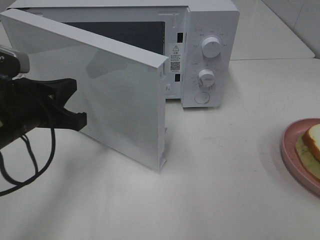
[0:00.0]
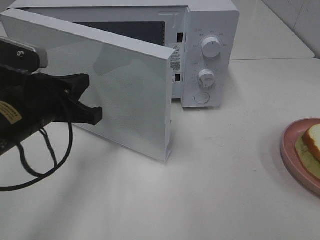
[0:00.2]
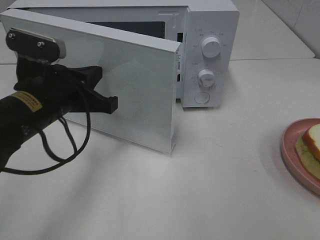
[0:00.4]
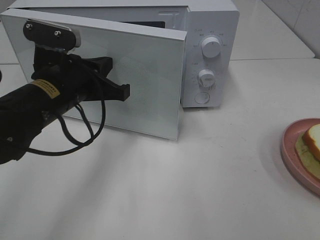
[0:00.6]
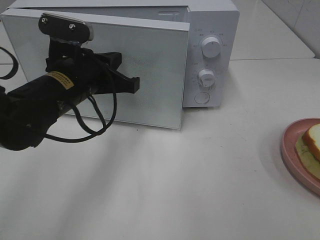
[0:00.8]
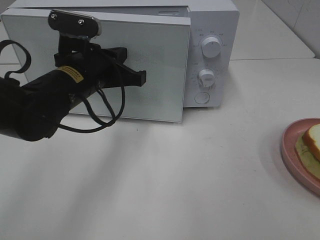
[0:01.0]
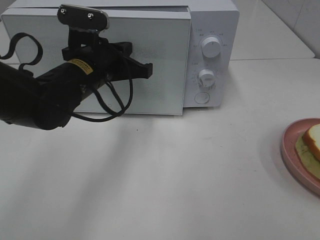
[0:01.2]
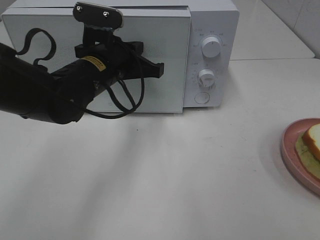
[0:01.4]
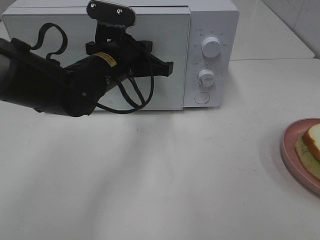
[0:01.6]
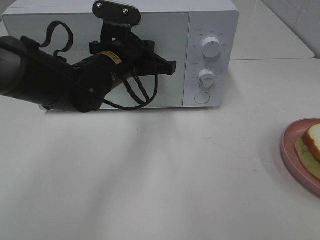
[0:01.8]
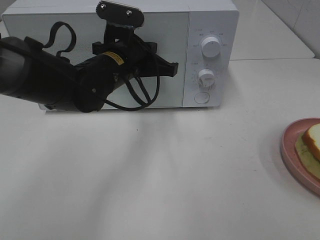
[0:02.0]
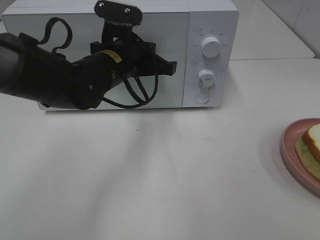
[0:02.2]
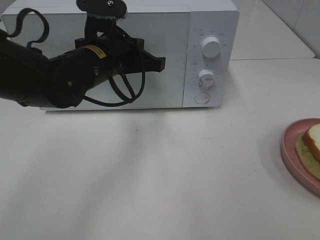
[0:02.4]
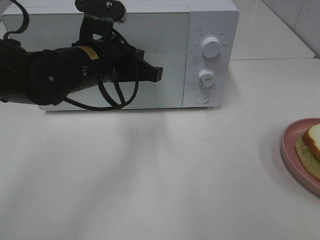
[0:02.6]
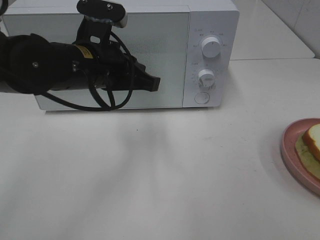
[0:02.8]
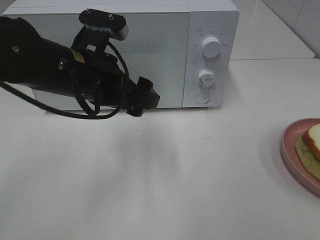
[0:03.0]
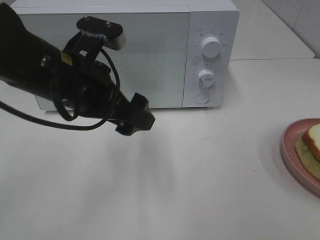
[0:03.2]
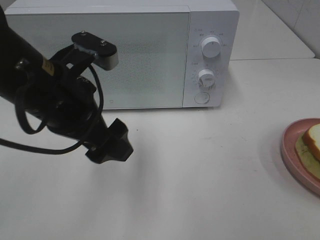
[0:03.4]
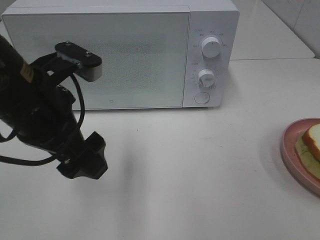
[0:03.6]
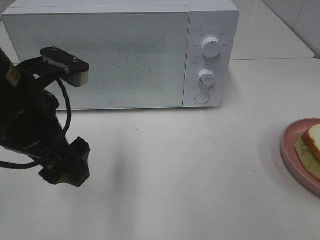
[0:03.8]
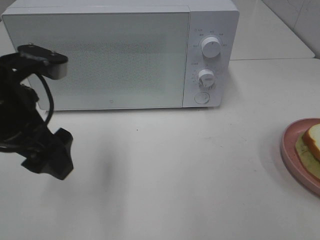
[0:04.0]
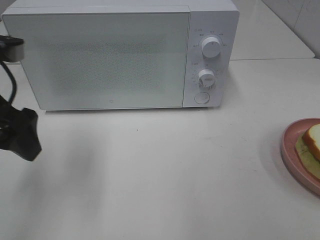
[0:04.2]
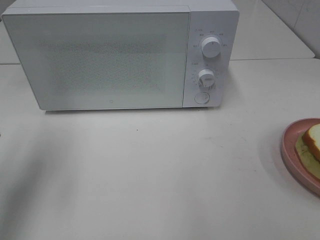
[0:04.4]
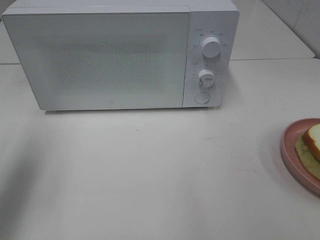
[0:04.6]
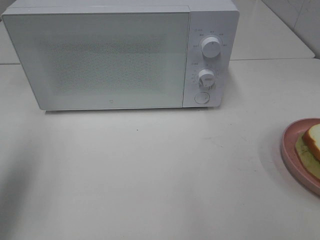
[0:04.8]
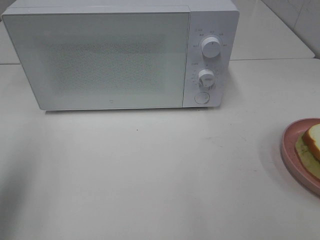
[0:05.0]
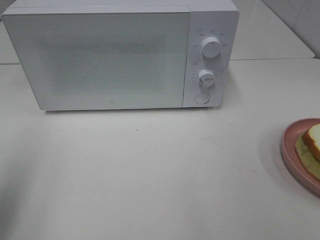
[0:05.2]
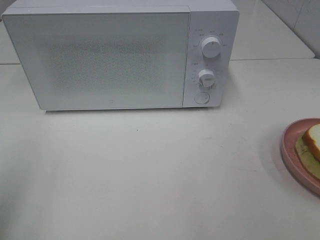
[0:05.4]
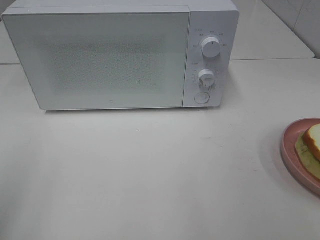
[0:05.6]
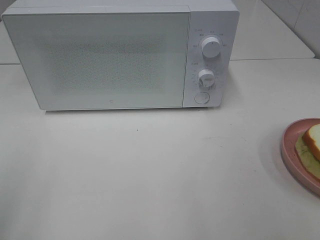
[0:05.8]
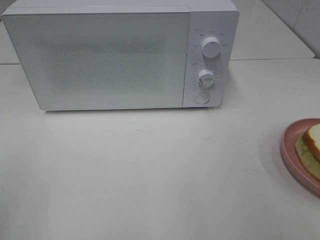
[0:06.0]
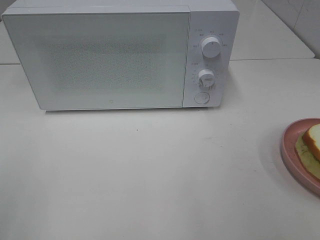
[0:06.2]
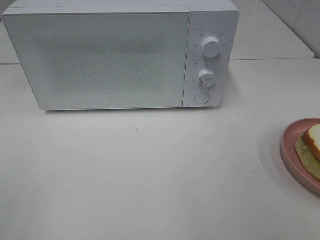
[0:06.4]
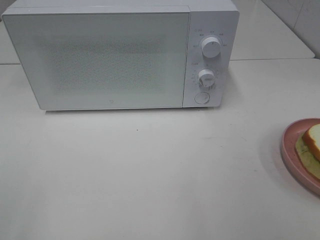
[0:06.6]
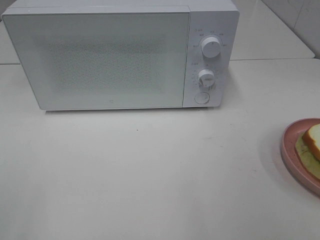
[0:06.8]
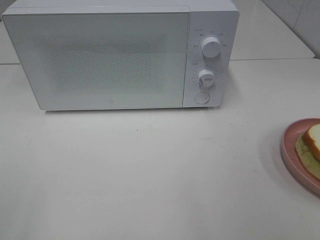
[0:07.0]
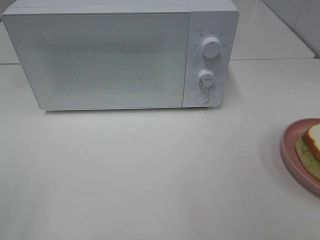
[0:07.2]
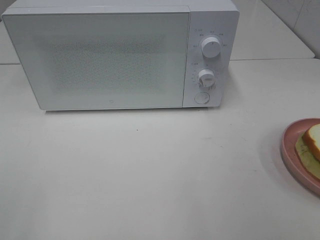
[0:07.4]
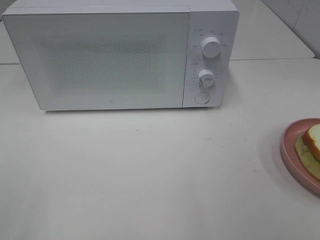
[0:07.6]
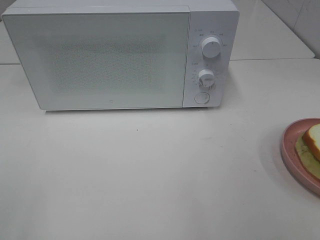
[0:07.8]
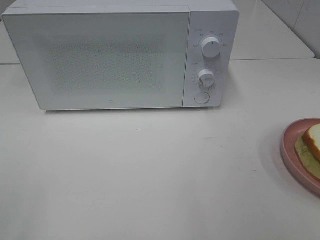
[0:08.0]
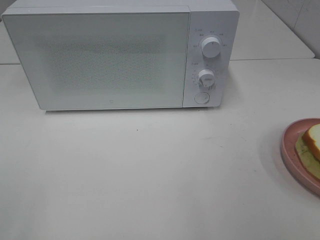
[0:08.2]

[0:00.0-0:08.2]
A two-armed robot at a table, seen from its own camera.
Task of the whole recording: Heat Sandwich.
Step, 0:00.0 to 0:02.6: Left hand: close the microwave door.
0:00.0 to 0:01.6: The left gripper is displaced to the right and forward by approximately 15 cm.
0:01.6 to 0:03.2: The left gripper travels backward by roughly 10 cm, and opens its fingers.
0:03.2 to 0:05.0: The left gripper travels to the left by about 20 cm.
0:05.0 to 0:06.6: The left gripper moves backward, about 15 cm.
0:06.6 to 0:08.2: The two grippers keep their place.

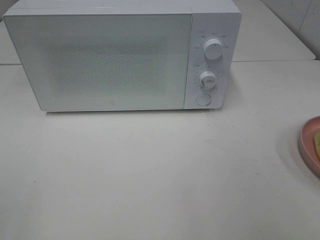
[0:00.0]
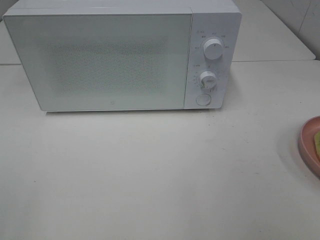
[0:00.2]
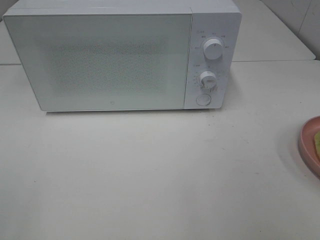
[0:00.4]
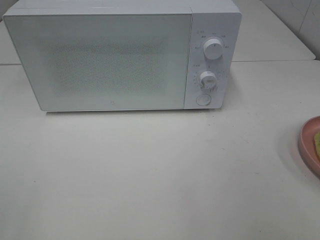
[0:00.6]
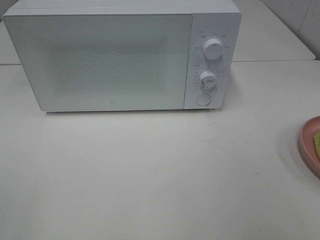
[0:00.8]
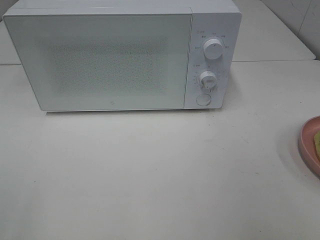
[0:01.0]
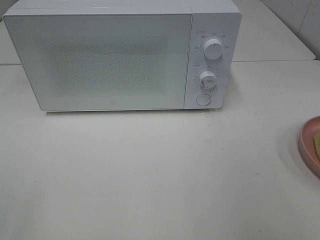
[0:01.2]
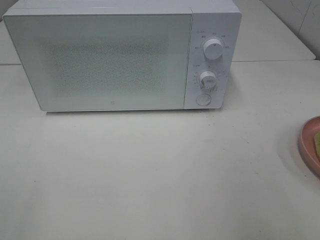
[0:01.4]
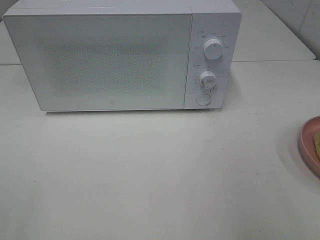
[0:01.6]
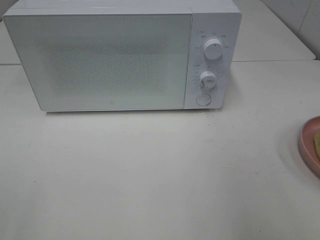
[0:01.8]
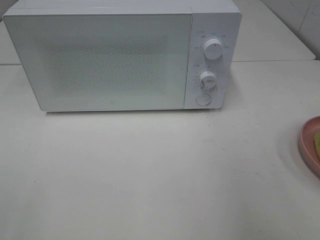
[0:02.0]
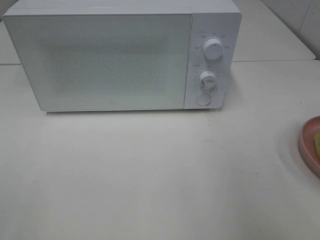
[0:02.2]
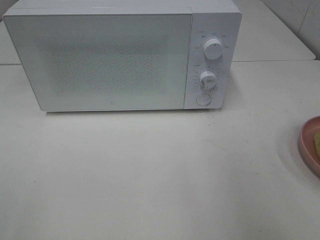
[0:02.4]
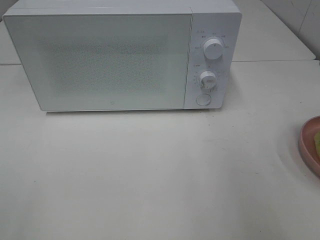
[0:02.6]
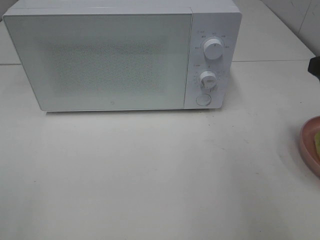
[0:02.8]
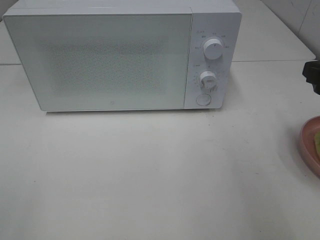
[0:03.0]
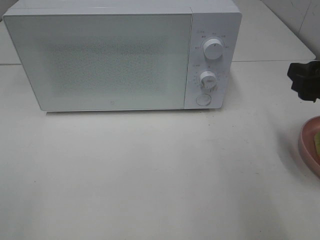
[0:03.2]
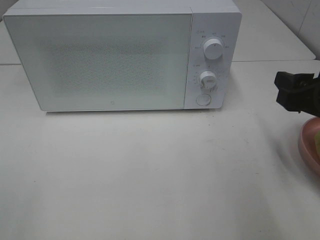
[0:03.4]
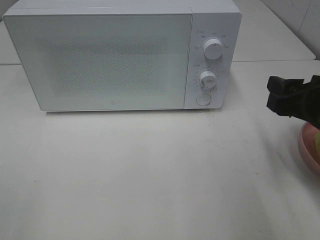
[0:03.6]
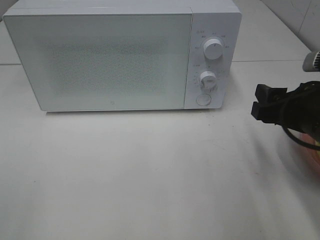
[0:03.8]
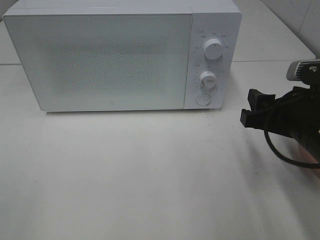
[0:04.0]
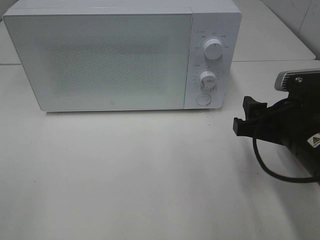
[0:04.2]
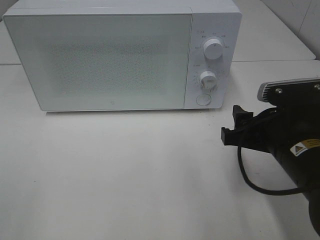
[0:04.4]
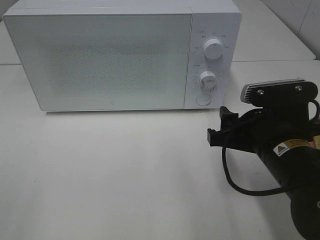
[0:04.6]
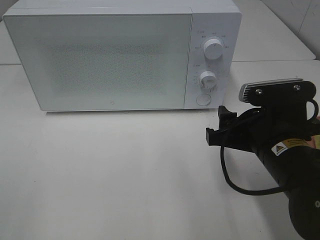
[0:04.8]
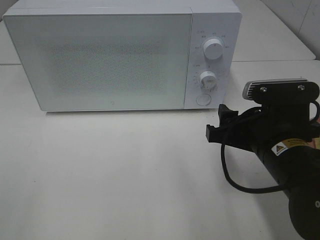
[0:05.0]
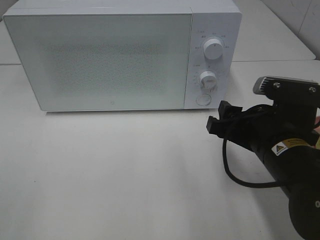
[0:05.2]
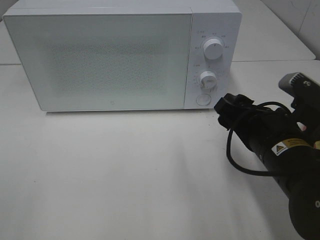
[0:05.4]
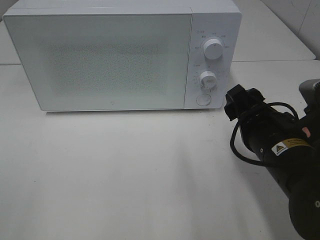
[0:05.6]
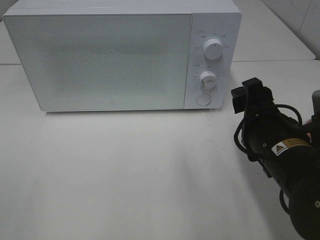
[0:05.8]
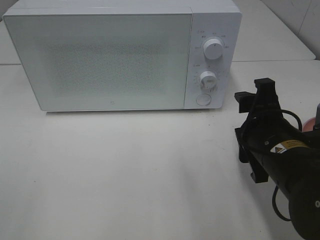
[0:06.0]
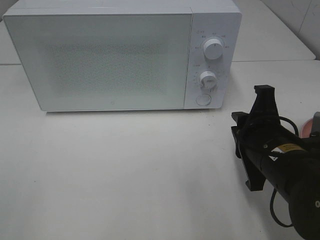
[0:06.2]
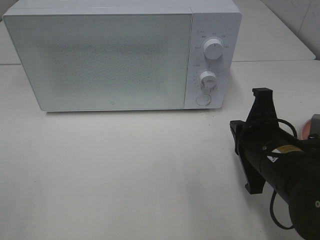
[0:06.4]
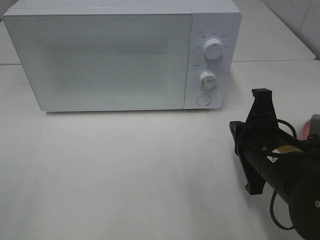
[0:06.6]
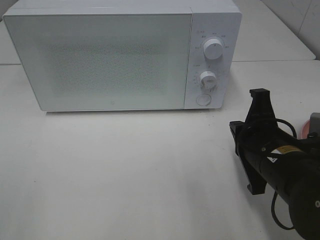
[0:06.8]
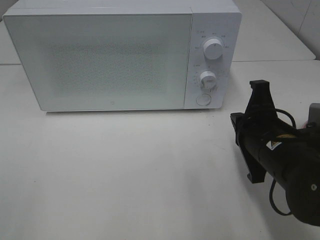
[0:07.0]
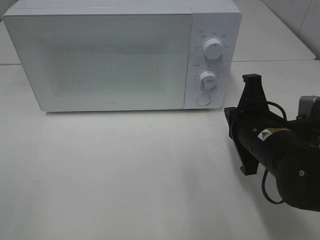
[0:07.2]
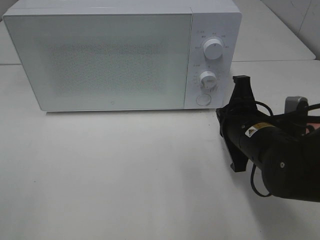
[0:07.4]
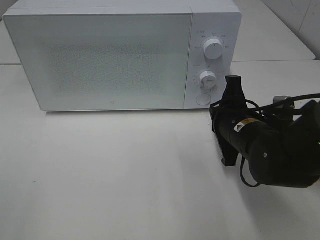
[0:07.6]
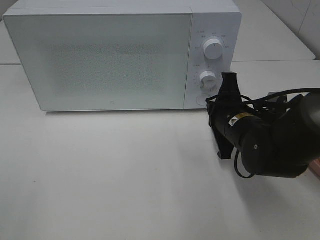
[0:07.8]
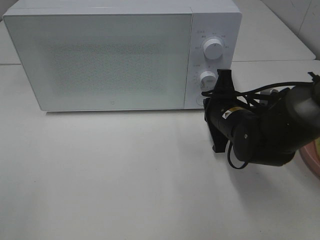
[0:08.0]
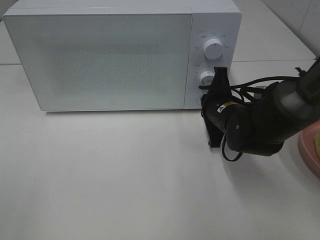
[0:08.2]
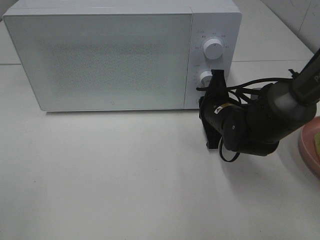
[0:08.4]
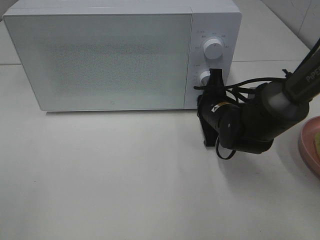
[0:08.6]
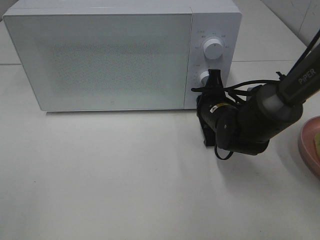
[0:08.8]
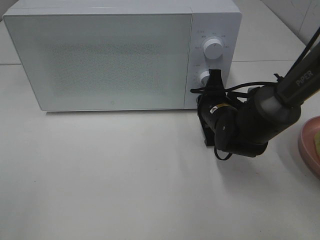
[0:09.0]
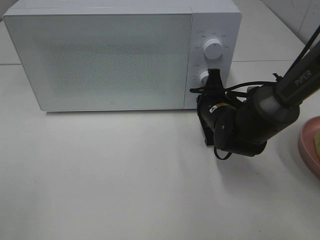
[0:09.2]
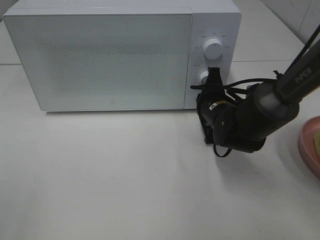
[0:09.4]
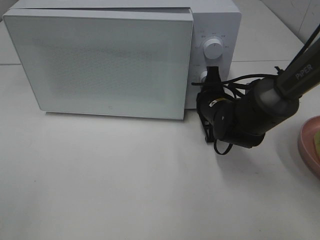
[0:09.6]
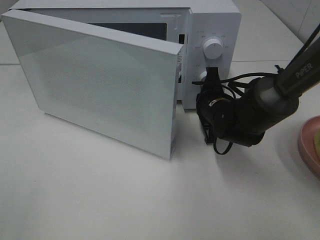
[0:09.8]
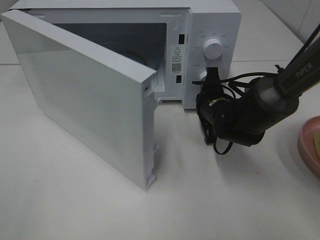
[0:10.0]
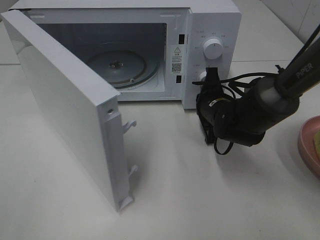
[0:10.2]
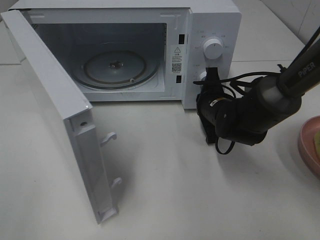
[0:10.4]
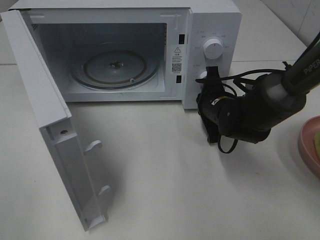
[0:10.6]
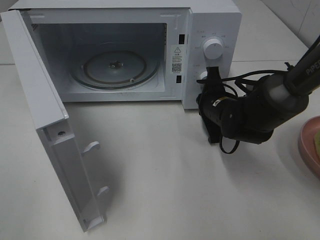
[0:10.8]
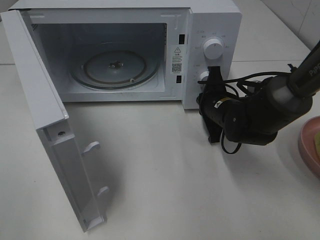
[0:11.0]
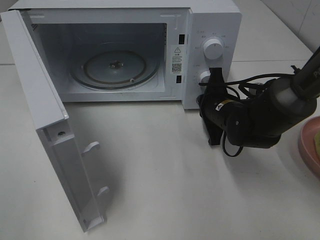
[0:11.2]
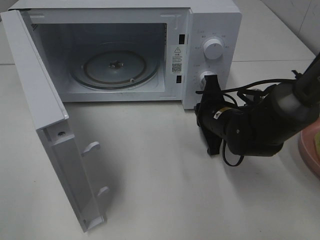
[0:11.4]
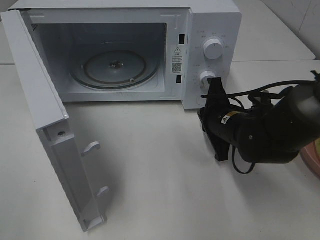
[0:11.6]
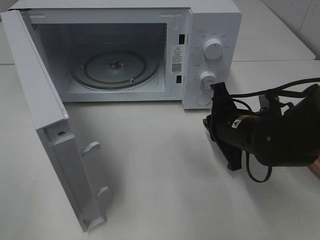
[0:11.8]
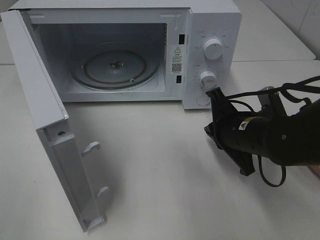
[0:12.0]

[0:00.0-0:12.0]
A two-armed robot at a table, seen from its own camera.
Task of the whole recording: Heat Sandwich.
Step, 0:00.0 to 0:11.4: Right hand: press the switch.
0:01.6 to 0:03.0: The right gripper heads forward and downward, covering roughly 15 cm.
0:03.0 to 0:04.4: The right gripper moves to the left and downward, some 15 cm.
0:06.0 to 0:07.6: The right gripper heads forward, covering some 5 cm, and closes up.
0:07.6 to 0:09.0: The right gripper shifts some 10 cm forward.
0:10.4 to 0:12.0: The right gripper shifts roughly 10 cm backward.

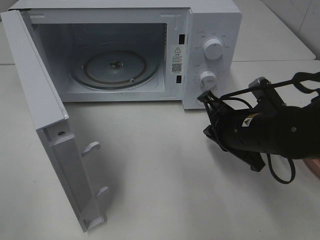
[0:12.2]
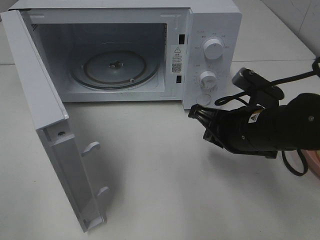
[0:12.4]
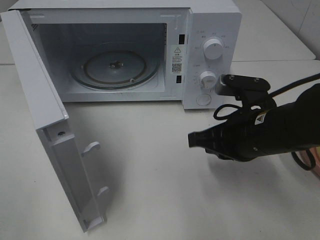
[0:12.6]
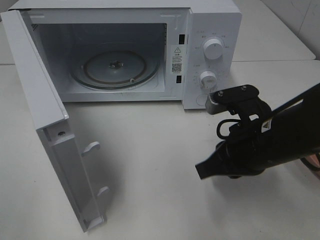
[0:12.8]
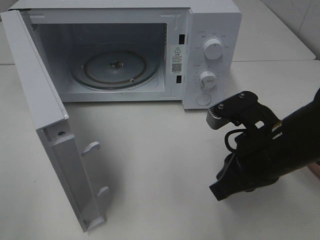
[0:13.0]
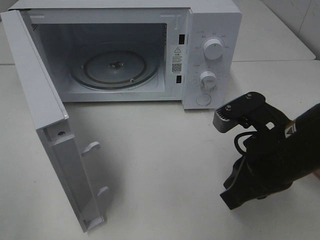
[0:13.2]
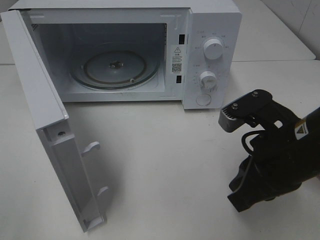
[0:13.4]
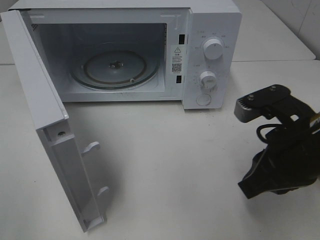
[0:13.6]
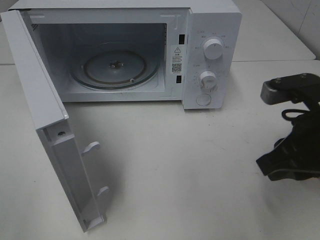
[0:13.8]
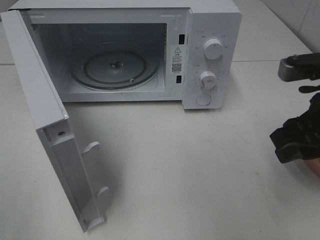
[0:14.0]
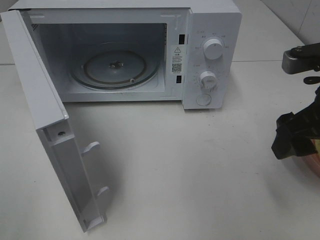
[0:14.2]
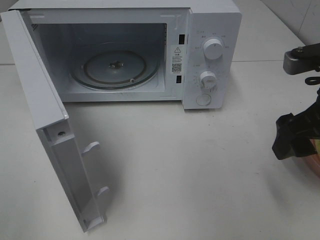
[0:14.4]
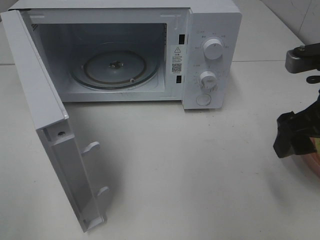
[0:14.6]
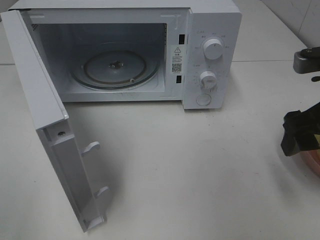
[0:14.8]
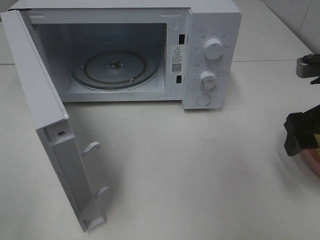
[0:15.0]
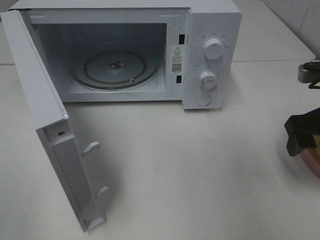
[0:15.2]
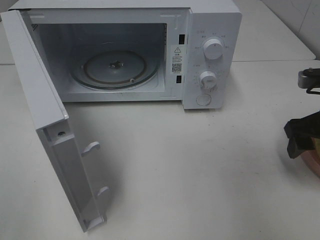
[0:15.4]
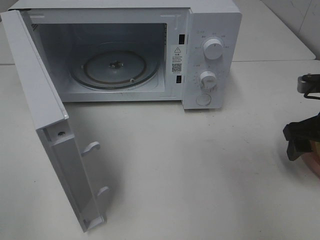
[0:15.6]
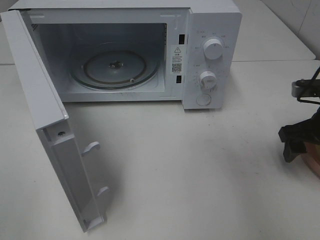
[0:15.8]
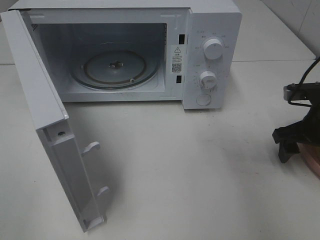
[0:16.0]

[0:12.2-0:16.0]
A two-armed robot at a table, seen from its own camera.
Task of the whole recording: Heat Sandwich.
0:12.2 to 0:13.4: The right gripper travels backward and upward by some 10 cm.
0:13.4 to 0:14.8: The right gripper heads to the right, covering roughly 10 cm, and opens.
0:14.8 to 0:16.0: The right gripper heads downward, forward and to the right, covering about 15 cm.
